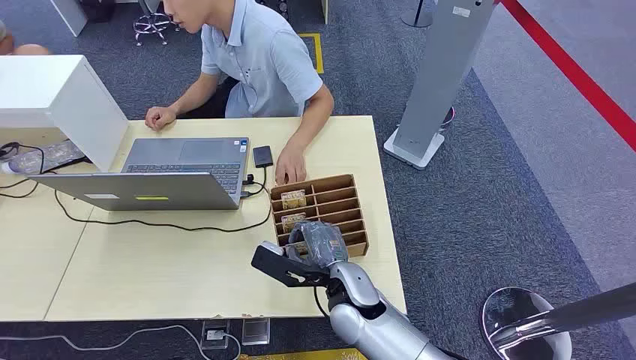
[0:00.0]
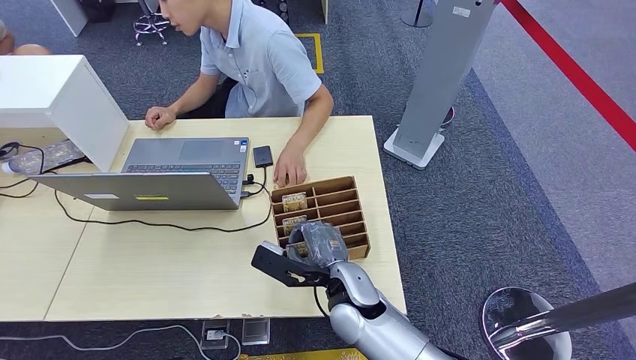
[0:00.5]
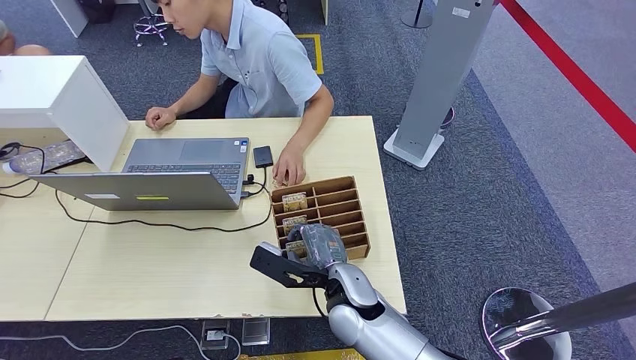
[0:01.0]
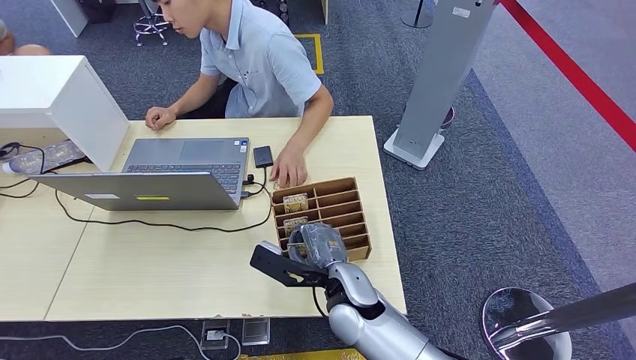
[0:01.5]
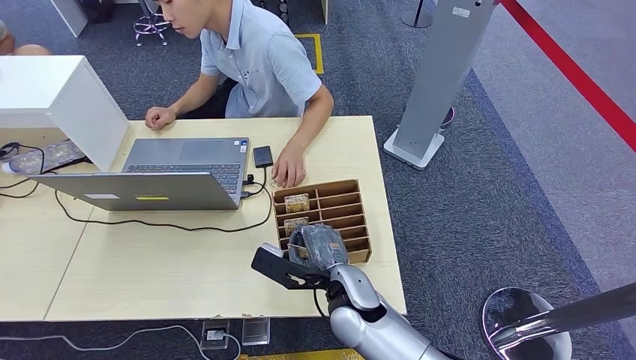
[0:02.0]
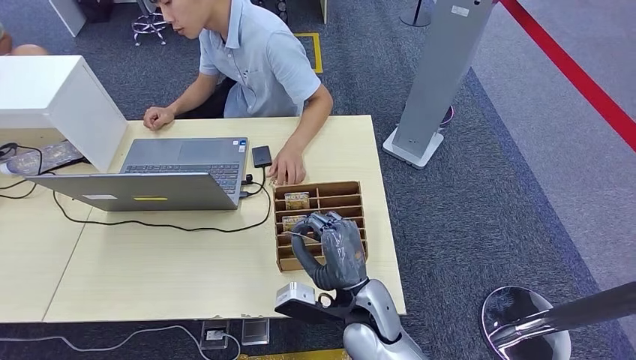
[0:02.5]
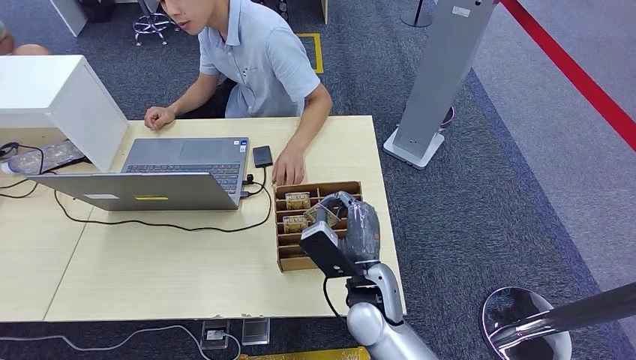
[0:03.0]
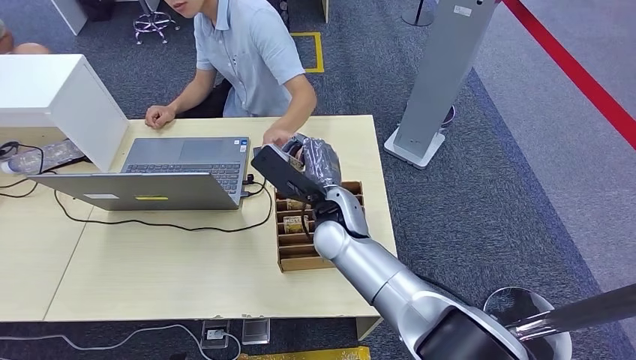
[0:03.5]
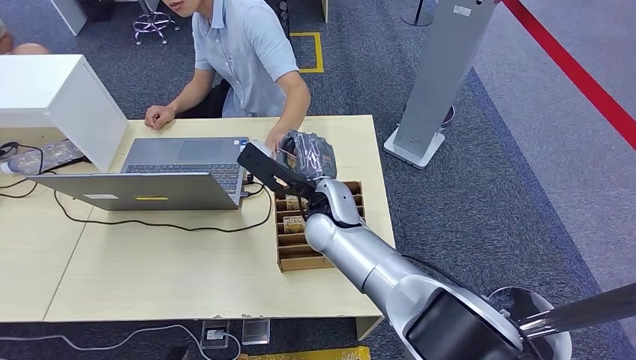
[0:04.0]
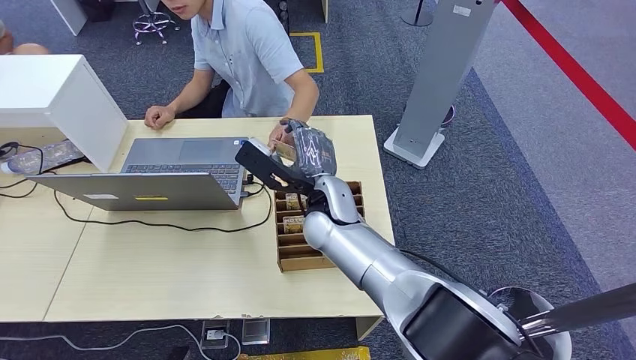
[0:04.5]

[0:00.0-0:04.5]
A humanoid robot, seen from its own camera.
Step, 0:00.0 to 0:02.5: Pick up the room card from the card holder.
Step, 0:04.0 to 0:04.5: Hand the room card to the target.
0:02.0 to 0:04.5: The right hand is displaced forward and upward by approximately 15 cm.

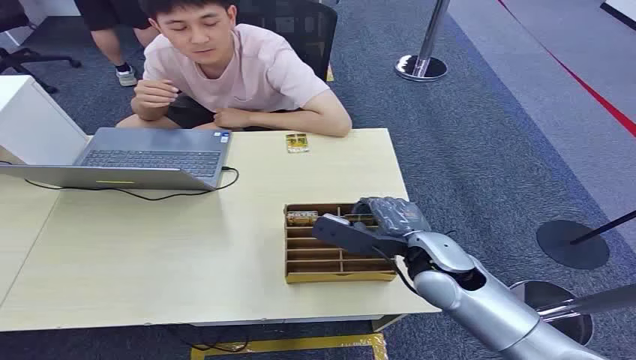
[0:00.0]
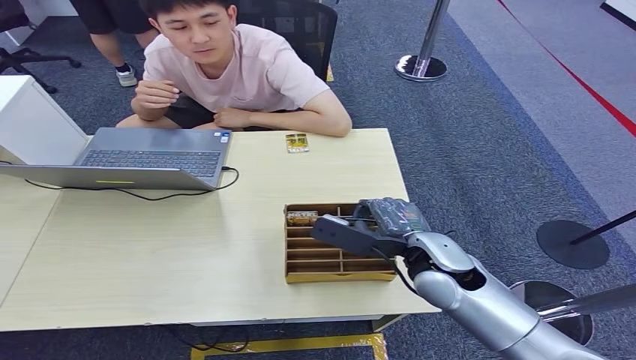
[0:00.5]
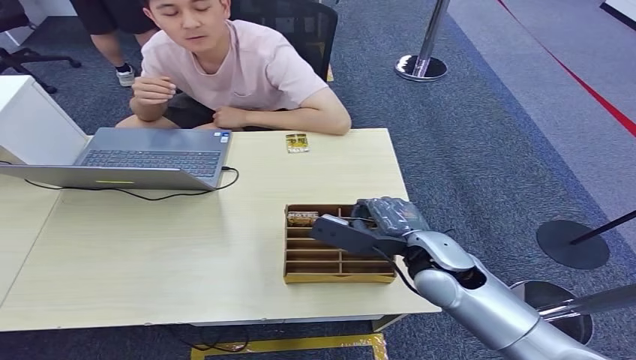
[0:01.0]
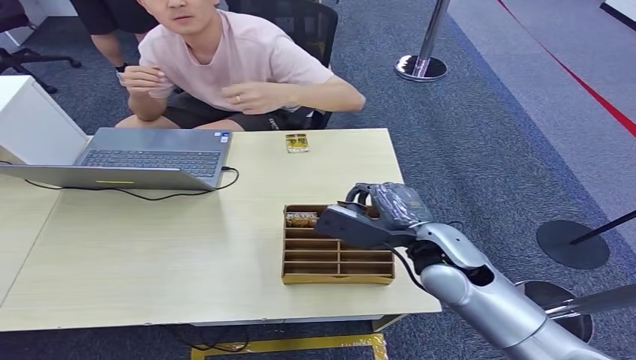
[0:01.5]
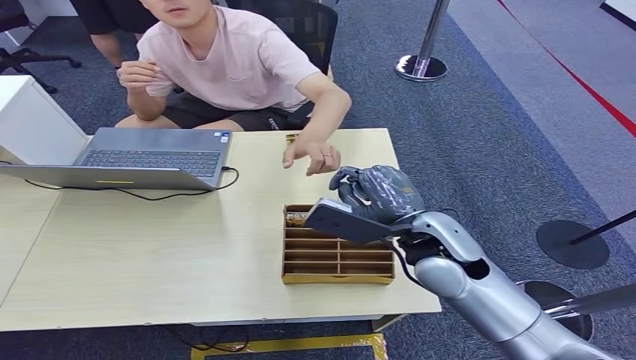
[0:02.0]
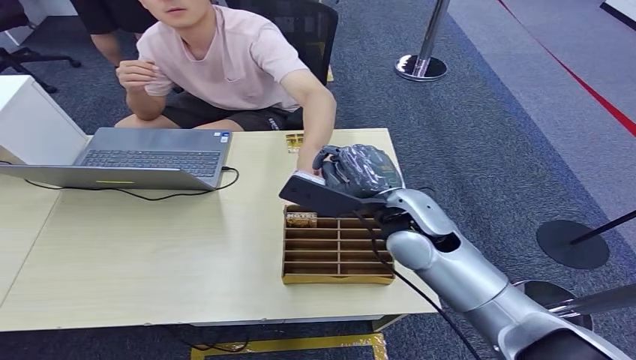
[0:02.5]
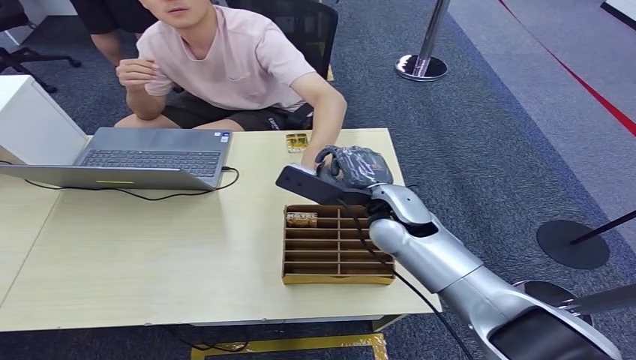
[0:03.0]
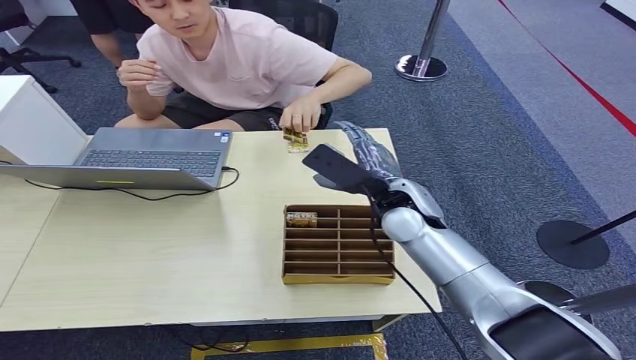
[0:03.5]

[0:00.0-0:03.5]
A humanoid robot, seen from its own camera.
Step, 0:00.0 to 0:01.5: Pick up the room card from the card holder.
Step, 0:02.0 to 0:03.5: Hand the room card to the target.
0:02.0 to 0:03.5: The right hand is displaced forward by roughly 10 cm.
